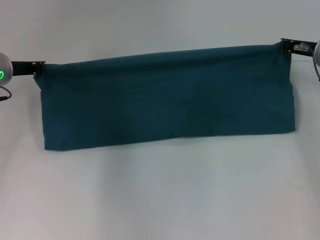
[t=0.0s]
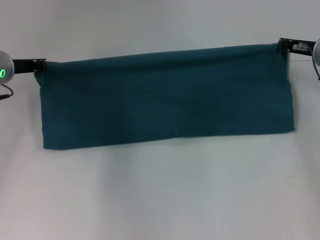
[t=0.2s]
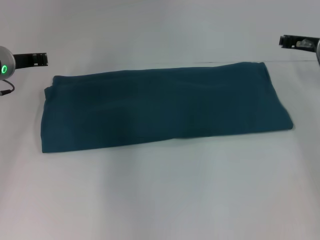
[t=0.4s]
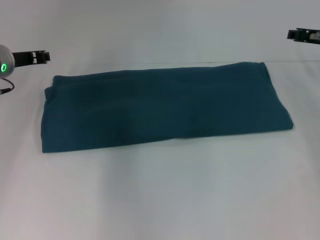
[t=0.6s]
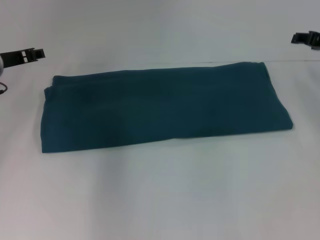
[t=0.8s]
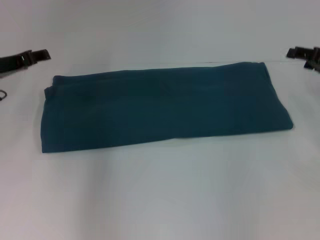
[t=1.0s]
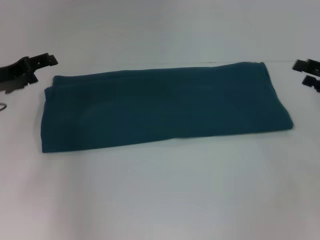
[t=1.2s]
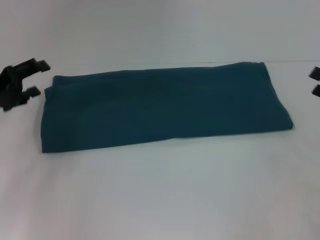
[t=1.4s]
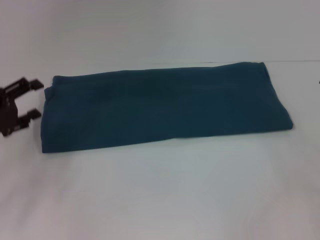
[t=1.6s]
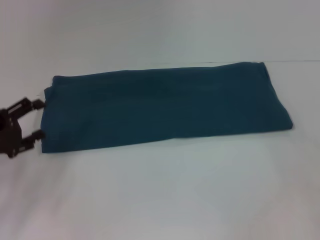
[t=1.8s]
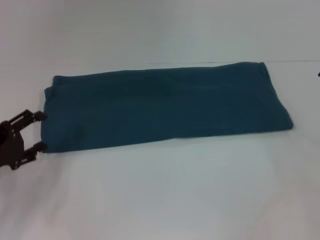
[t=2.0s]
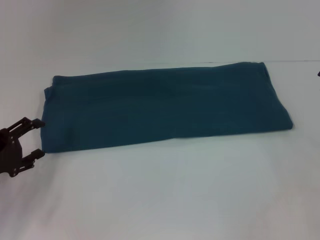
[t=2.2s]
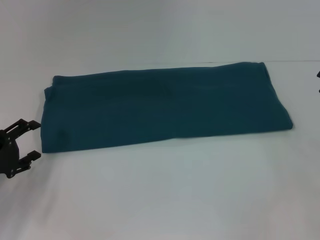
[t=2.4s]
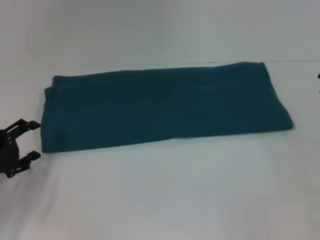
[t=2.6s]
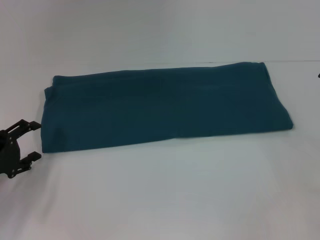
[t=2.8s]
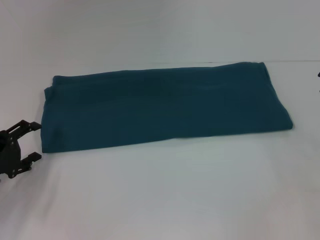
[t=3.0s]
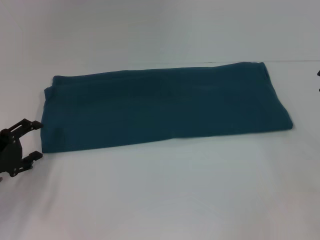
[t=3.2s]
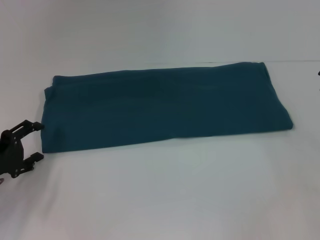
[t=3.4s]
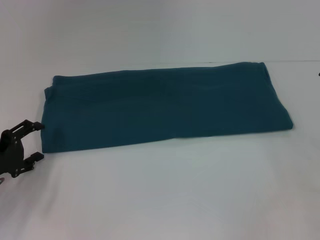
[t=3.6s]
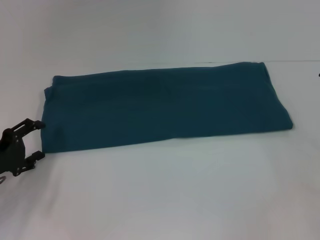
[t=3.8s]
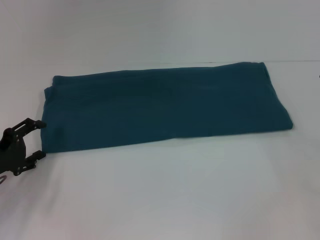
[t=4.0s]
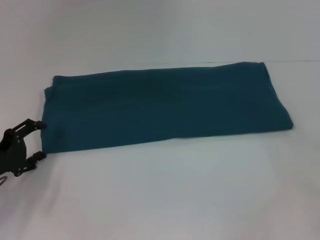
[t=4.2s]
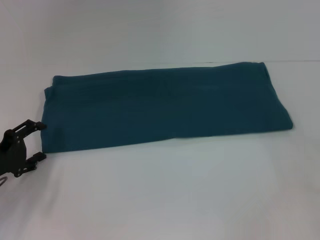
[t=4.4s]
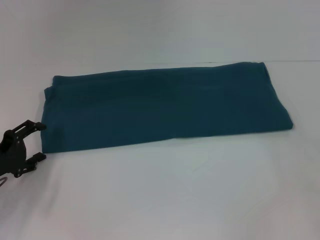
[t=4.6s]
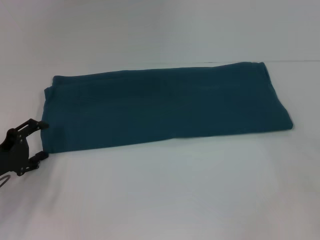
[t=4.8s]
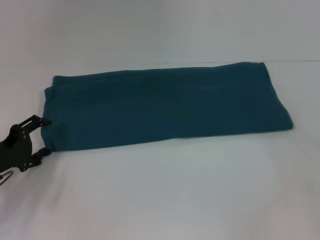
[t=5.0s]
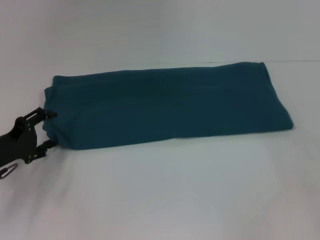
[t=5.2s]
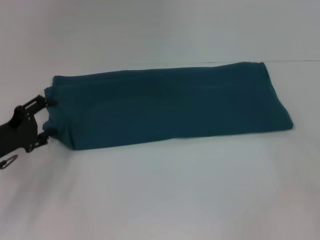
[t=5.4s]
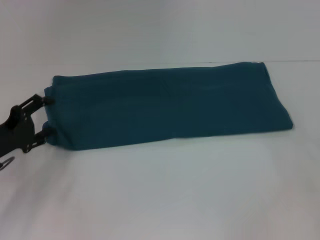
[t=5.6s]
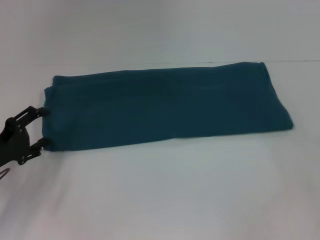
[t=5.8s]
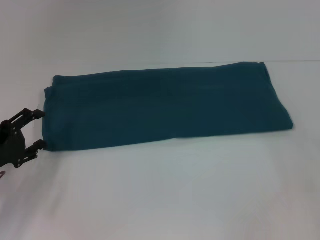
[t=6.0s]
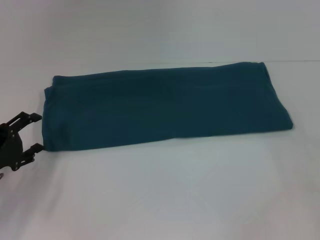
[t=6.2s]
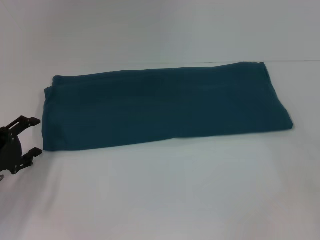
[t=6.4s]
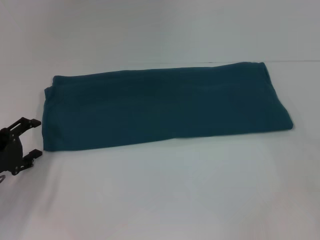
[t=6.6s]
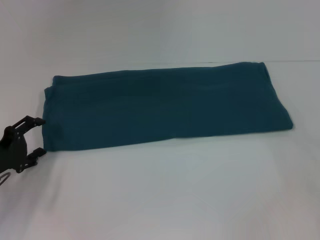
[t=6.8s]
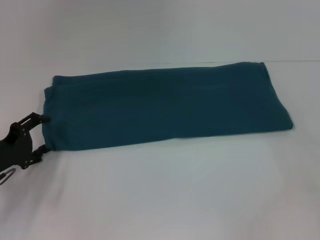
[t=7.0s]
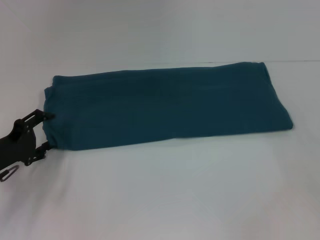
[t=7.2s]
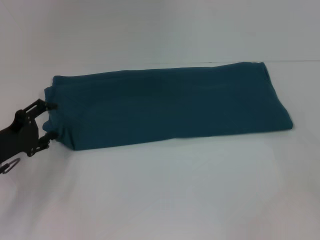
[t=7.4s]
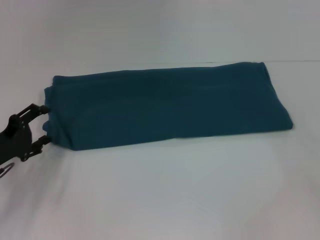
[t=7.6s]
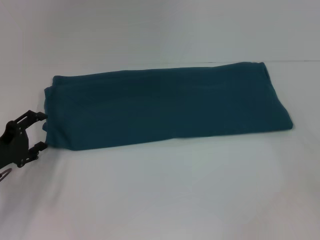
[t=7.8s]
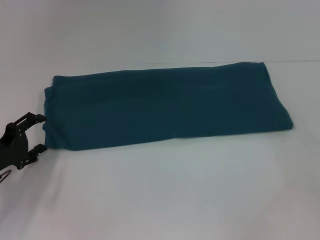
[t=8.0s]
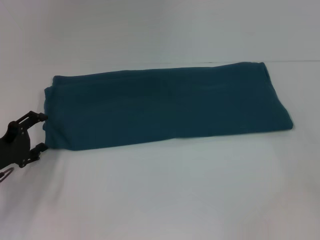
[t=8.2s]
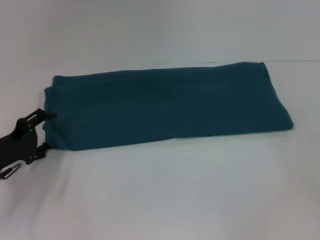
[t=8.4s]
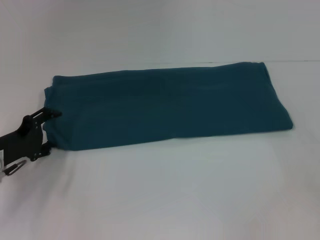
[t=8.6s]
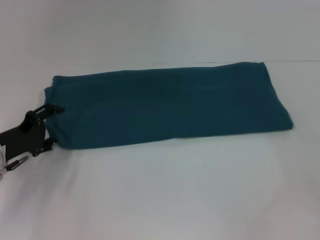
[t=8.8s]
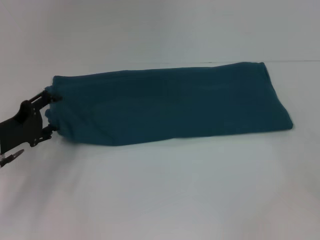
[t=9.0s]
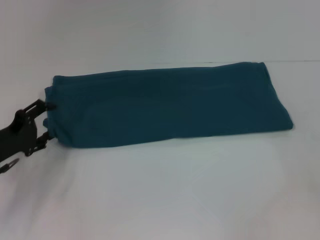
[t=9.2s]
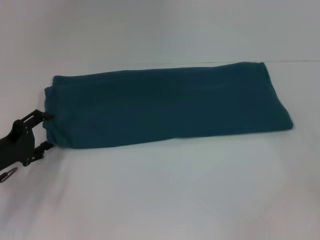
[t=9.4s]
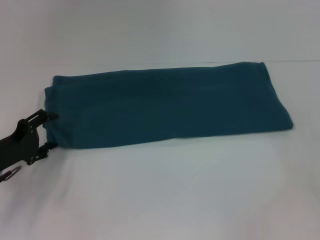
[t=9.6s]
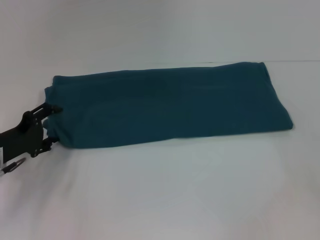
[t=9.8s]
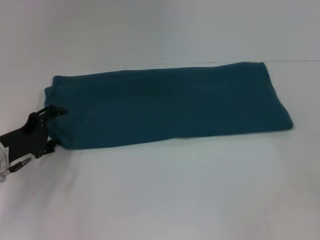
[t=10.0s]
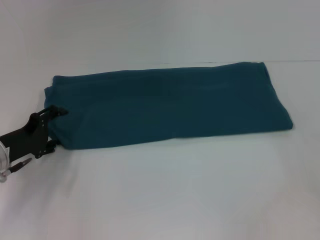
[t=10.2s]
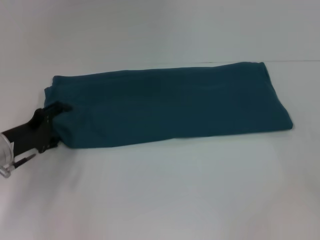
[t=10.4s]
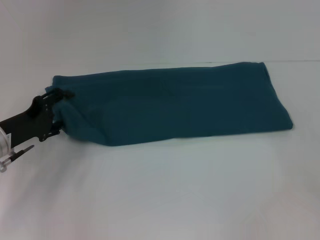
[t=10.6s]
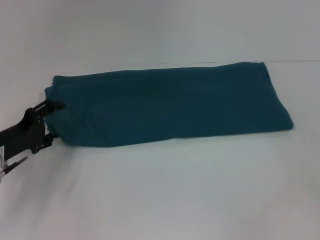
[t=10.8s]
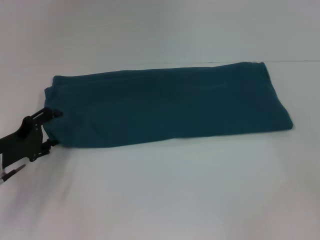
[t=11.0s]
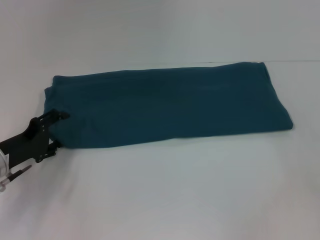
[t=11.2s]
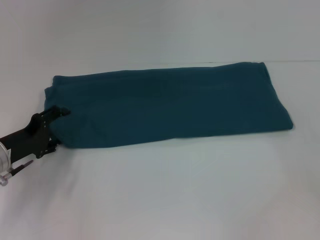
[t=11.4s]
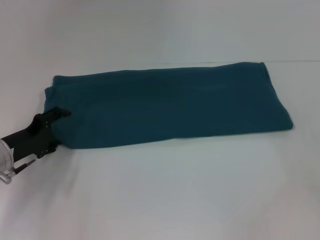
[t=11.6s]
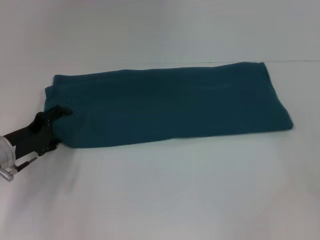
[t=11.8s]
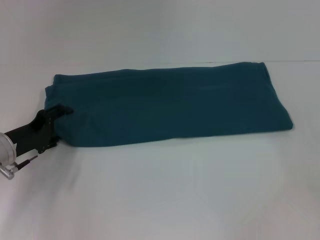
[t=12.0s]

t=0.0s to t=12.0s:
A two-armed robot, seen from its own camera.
t=0.0s to t=1.6s: The right gripper moves backward and to the right, approximately 20 cm, and opens its fingers. The left gripper moves backward and to the left, approximately 15 cm, and opens.
t=1.6s to t=3.0s: The left gripper heads downward, covering some 5 cm.
t=3.0s to t=4.4s: Both grippers stay put.
t=4.4s to t=10.4s: The grippers move only a little.
t=10.4s to t=12.0s: There are only small adjustments of the grippers.

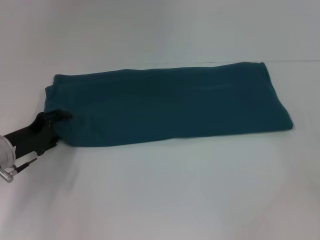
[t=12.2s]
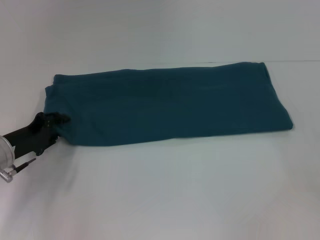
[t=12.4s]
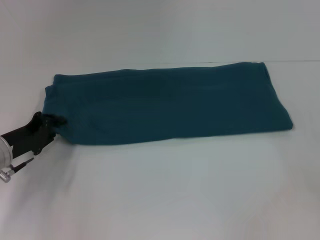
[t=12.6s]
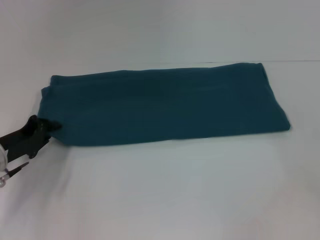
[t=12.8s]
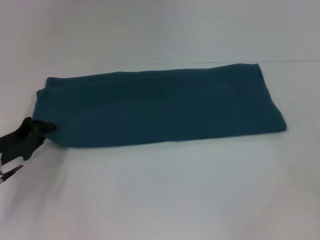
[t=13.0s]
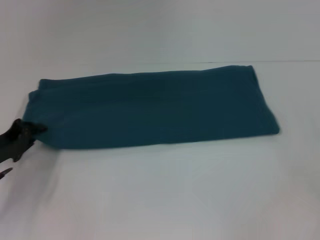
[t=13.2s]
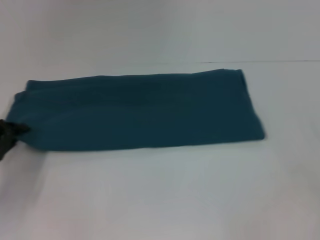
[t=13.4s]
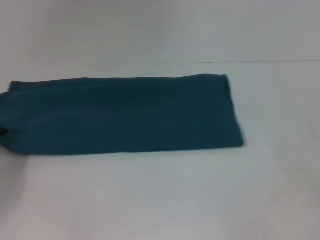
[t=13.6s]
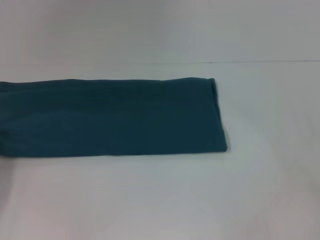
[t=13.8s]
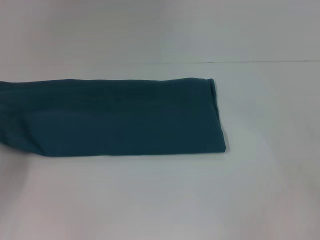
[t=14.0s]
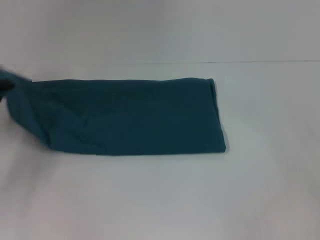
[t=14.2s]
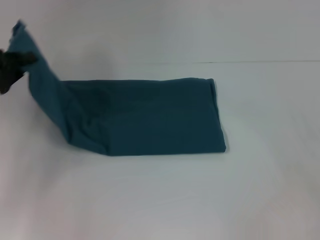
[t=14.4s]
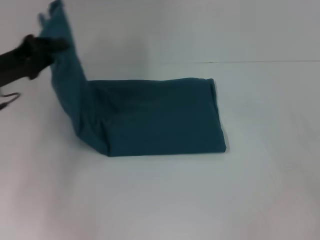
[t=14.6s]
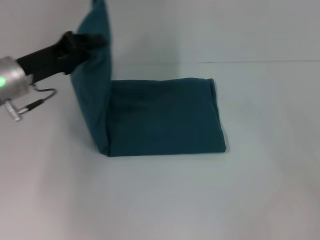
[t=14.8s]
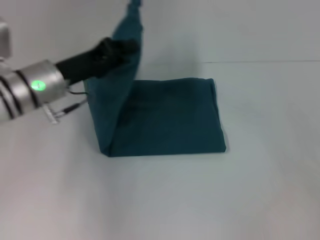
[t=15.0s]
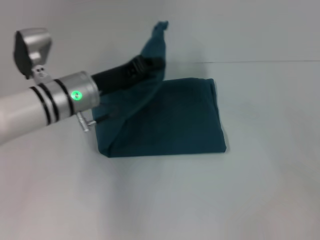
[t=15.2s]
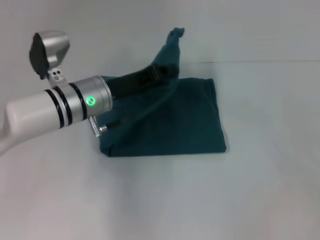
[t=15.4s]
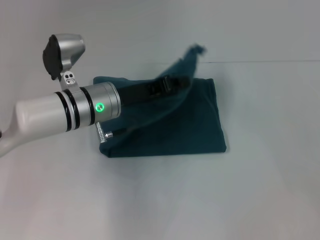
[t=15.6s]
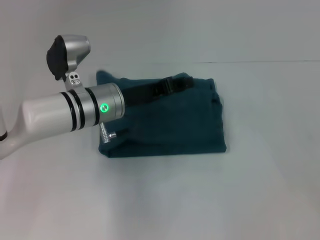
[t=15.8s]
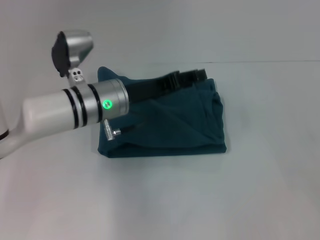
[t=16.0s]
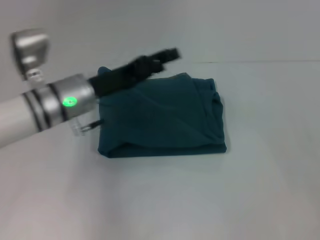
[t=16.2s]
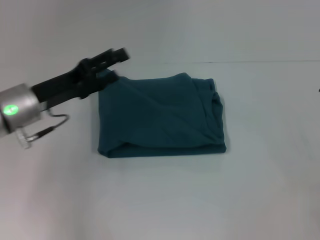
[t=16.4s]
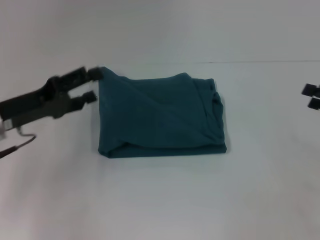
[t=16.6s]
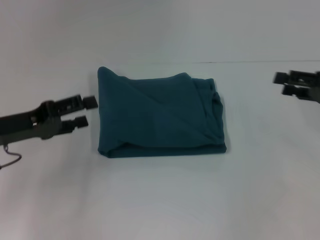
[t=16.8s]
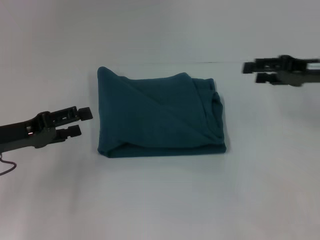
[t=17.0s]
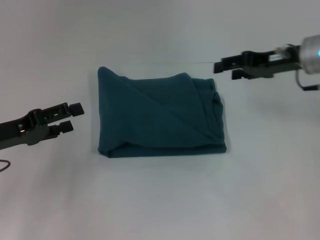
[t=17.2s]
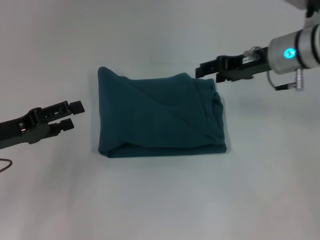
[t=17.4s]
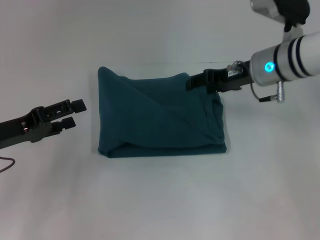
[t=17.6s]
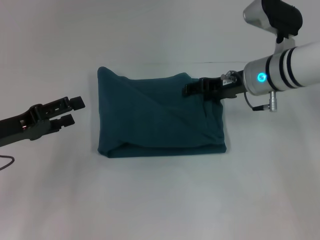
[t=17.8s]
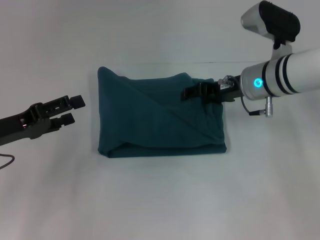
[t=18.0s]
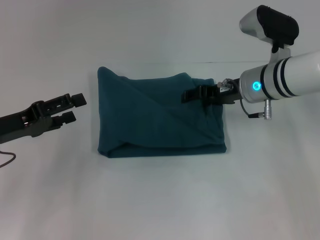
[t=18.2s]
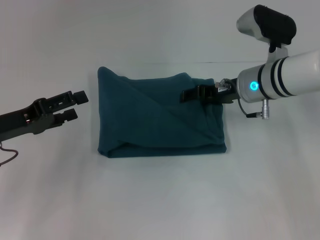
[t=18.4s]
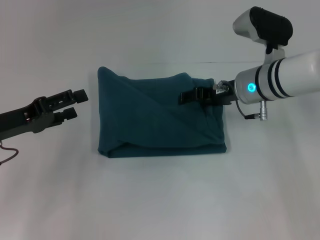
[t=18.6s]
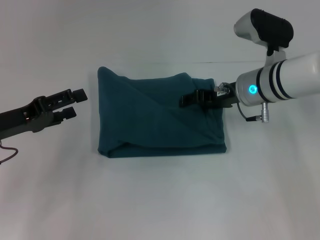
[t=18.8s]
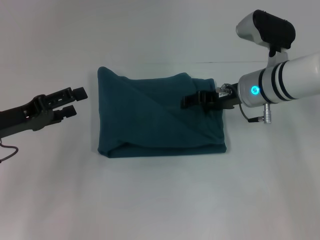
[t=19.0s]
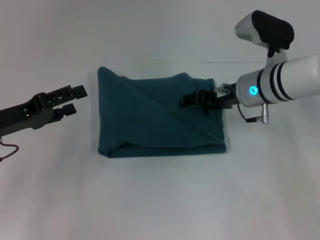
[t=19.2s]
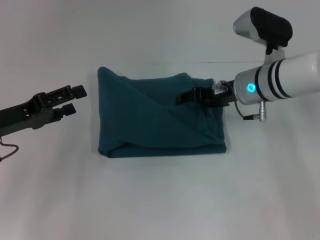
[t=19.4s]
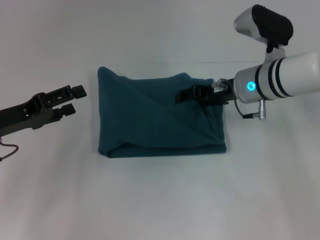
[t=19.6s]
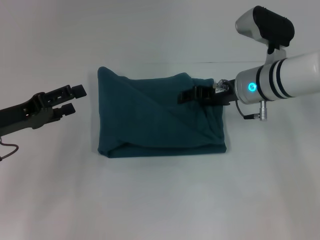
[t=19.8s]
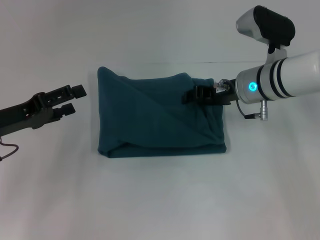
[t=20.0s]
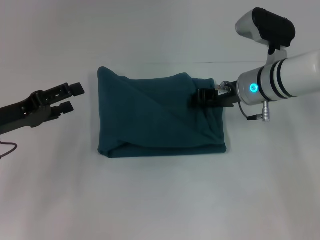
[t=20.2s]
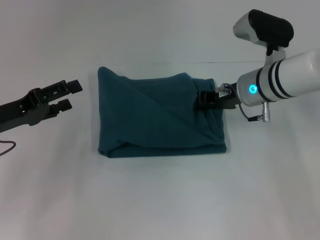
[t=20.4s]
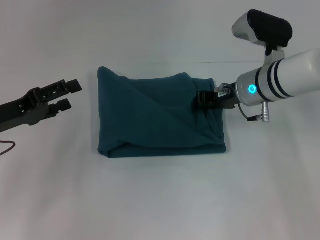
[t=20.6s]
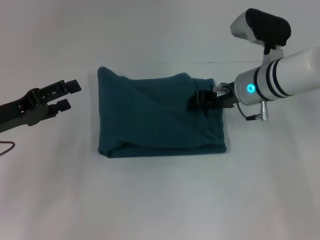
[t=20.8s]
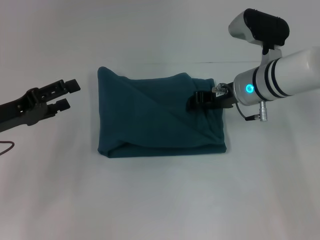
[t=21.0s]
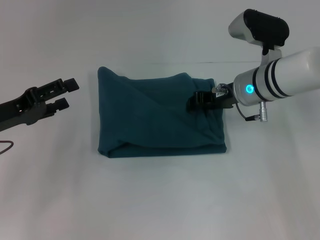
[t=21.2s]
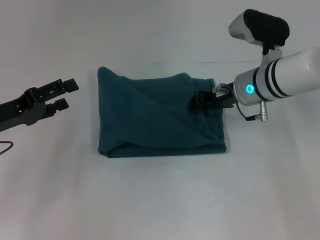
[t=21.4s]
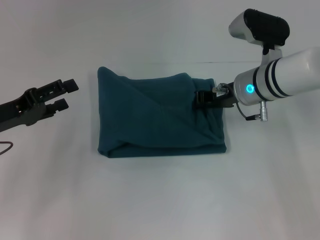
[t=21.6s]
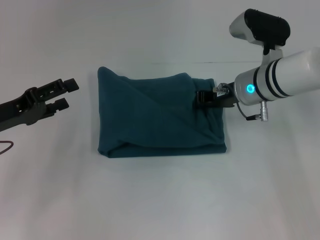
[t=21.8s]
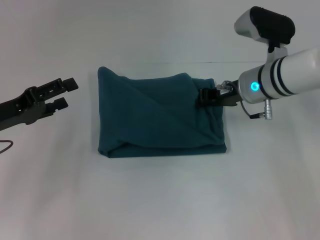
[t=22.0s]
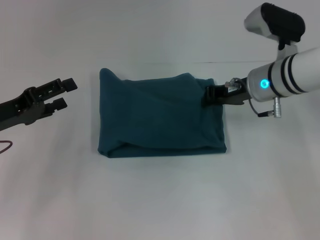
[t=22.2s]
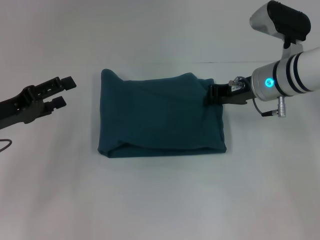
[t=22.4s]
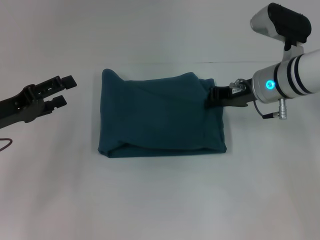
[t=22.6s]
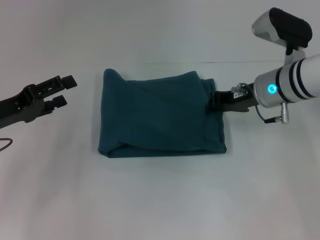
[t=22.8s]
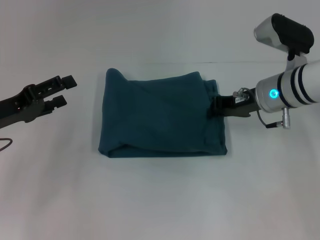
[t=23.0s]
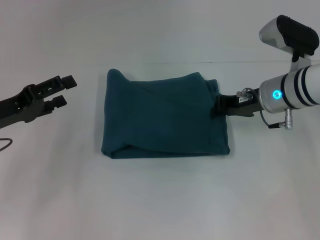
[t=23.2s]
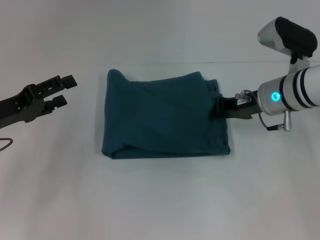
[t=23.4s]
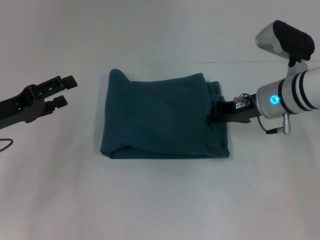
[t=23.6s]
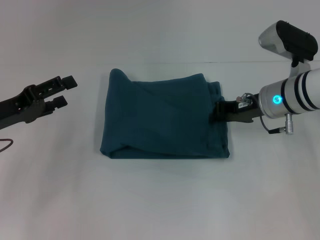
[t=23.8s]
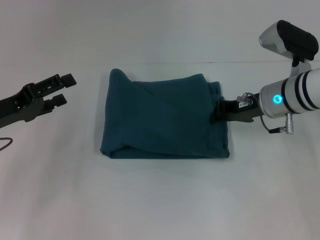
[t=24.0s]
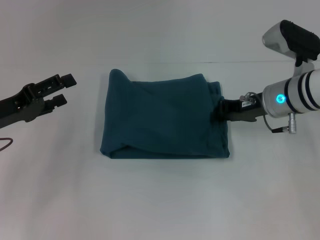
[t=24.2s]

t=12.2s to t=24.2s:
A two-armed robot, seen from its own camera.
Step, t=12.2s to t=15.8s: Fold the clothes to the left.
t=12.2s to t=13.8s: The left gripper moves to the left, about 10 cm, and closes up.
t=13.8s to t=15.2s: The left gripper is displaced to the right and forward by roughly 25 cm.
t=15.2s to t=16.6s: The left gripper moves to the left and backward, roughly 15 cm, and opens.
t=16.6s to t=18.2s: The right gripper shifts about 25 cm to the left and forward.
t=18.2s to t=19.8s: The two grippers keep their place.
t=19.8s to t=24.2s: The grippers stay close to where they were, moving slightly.
